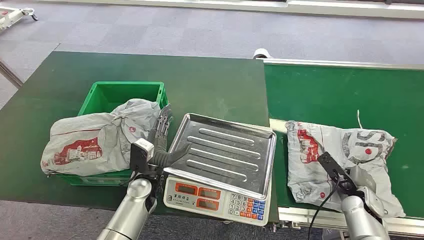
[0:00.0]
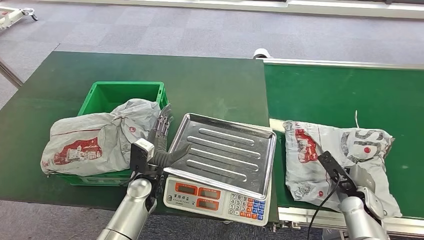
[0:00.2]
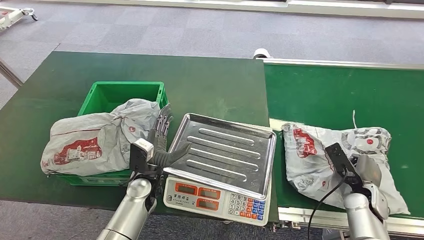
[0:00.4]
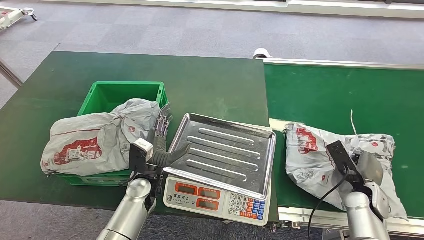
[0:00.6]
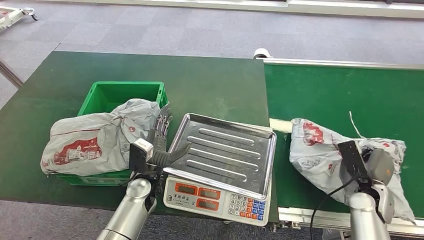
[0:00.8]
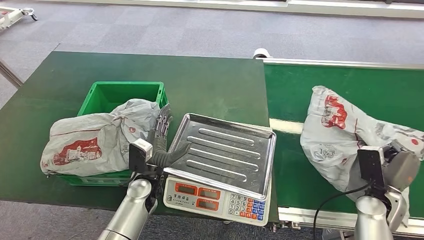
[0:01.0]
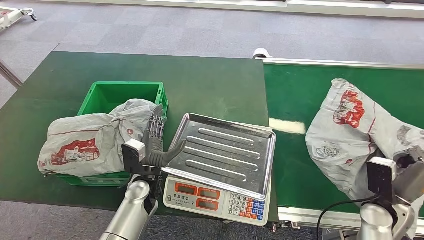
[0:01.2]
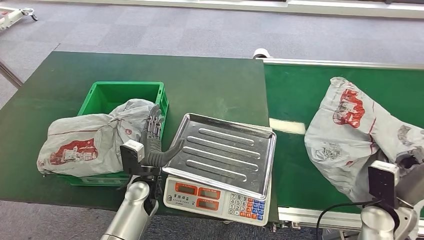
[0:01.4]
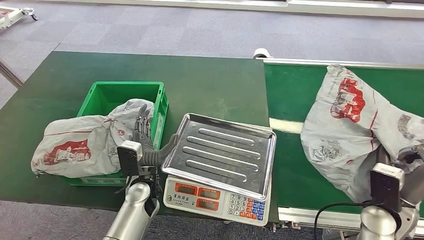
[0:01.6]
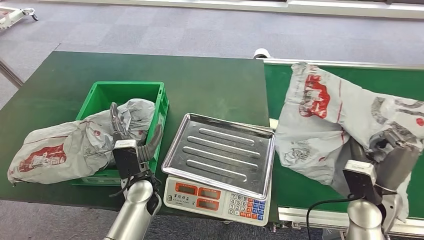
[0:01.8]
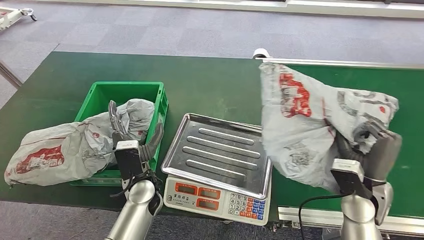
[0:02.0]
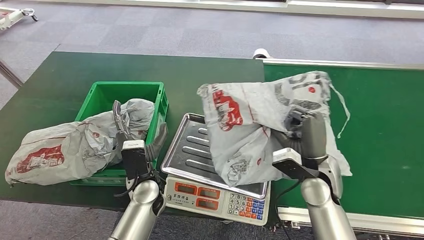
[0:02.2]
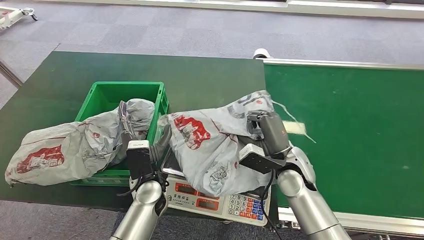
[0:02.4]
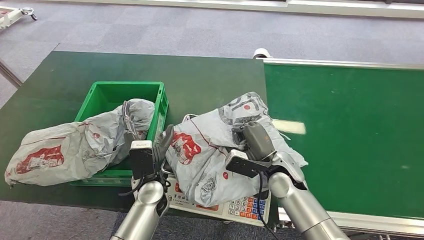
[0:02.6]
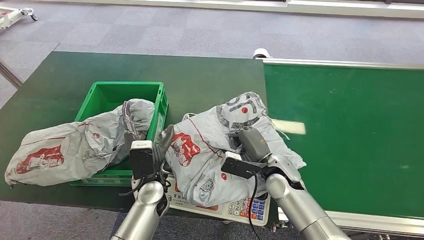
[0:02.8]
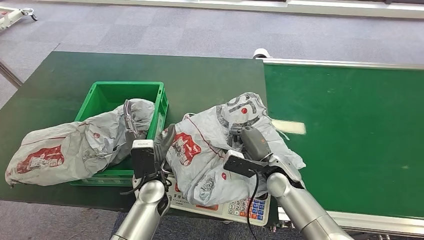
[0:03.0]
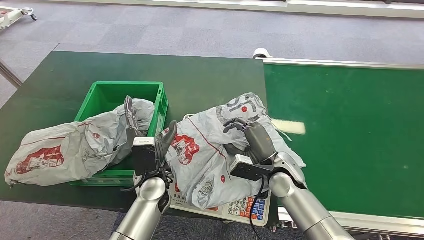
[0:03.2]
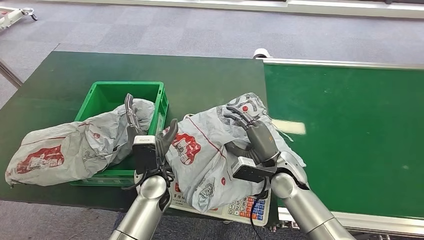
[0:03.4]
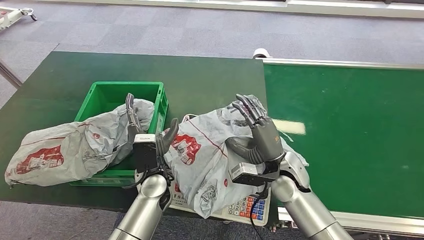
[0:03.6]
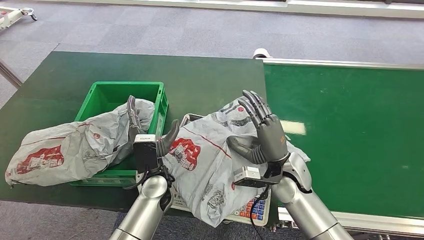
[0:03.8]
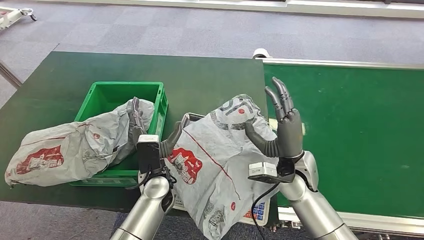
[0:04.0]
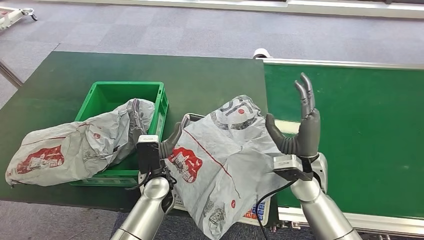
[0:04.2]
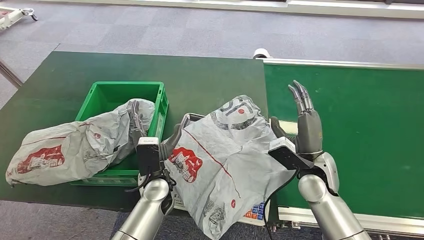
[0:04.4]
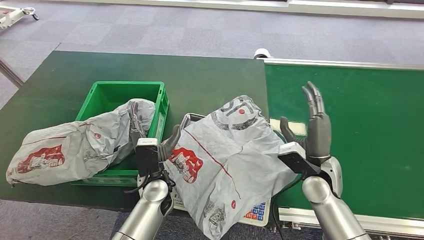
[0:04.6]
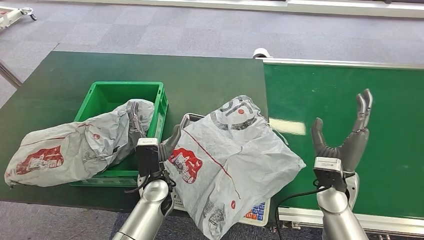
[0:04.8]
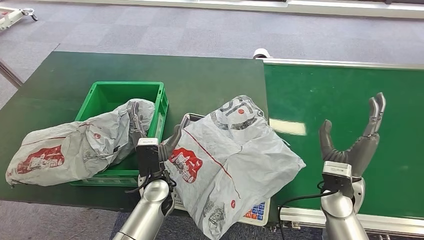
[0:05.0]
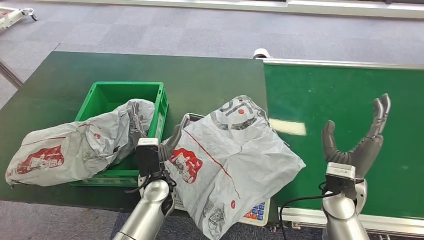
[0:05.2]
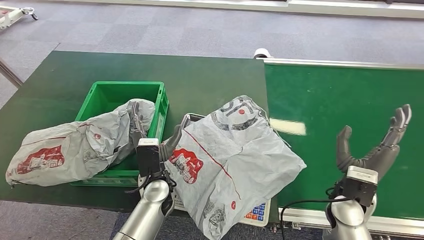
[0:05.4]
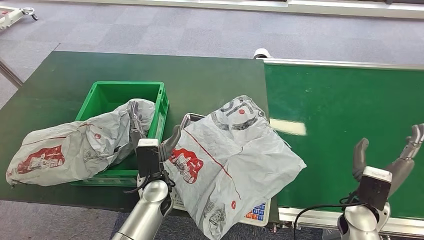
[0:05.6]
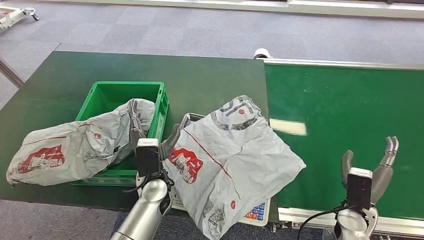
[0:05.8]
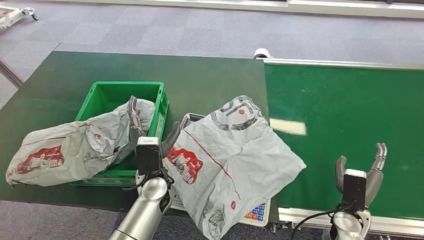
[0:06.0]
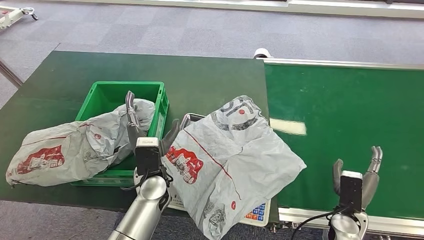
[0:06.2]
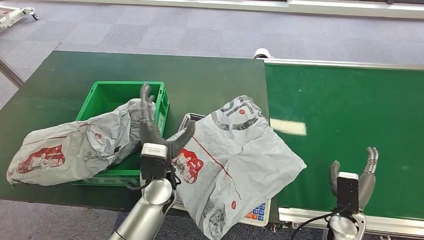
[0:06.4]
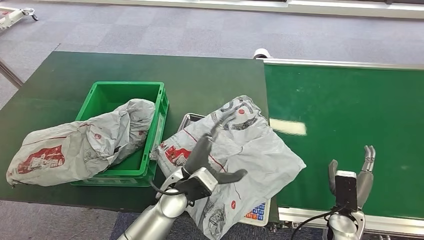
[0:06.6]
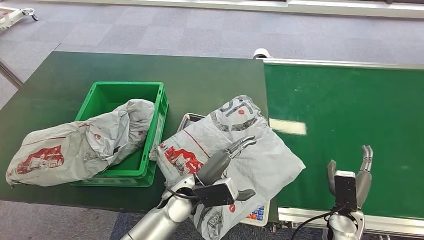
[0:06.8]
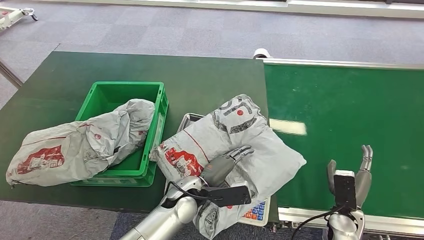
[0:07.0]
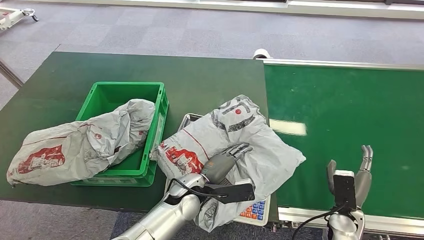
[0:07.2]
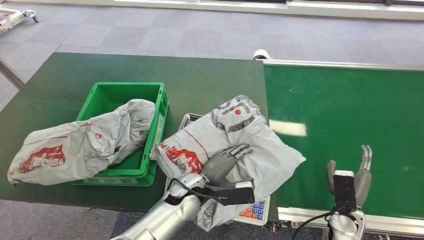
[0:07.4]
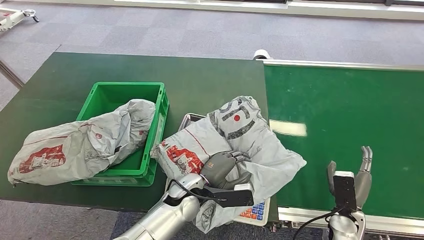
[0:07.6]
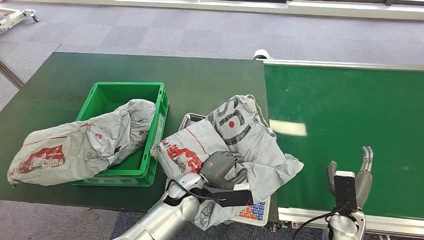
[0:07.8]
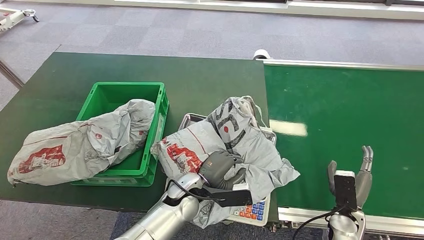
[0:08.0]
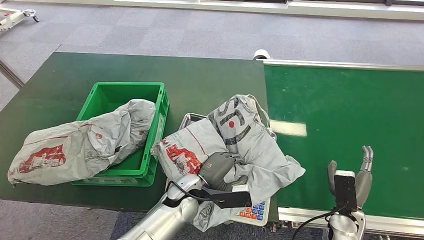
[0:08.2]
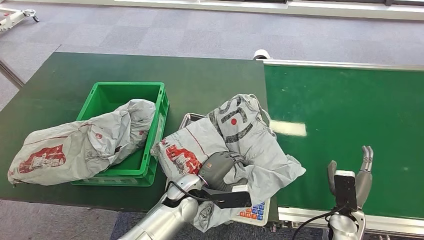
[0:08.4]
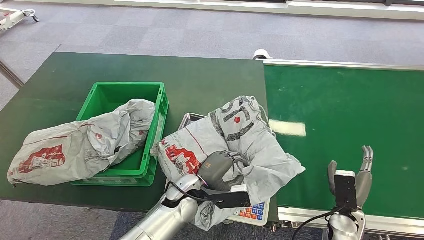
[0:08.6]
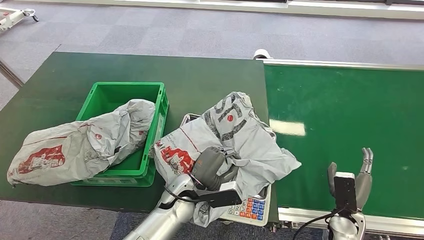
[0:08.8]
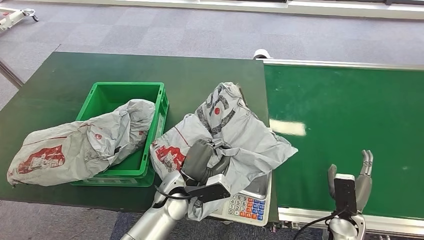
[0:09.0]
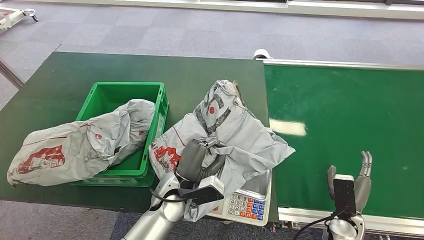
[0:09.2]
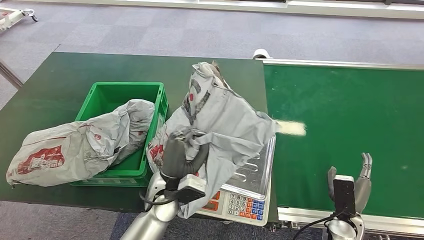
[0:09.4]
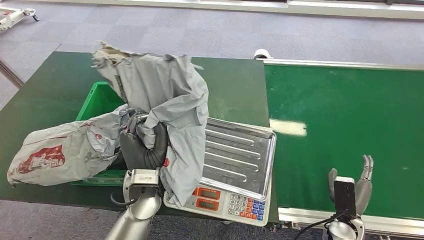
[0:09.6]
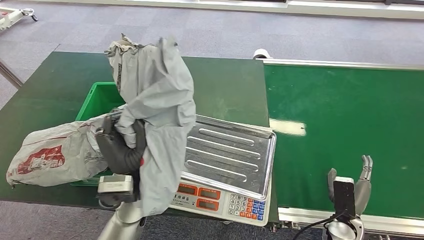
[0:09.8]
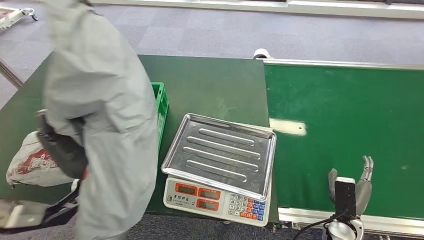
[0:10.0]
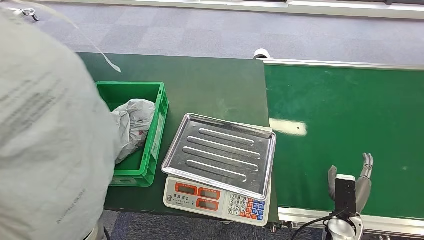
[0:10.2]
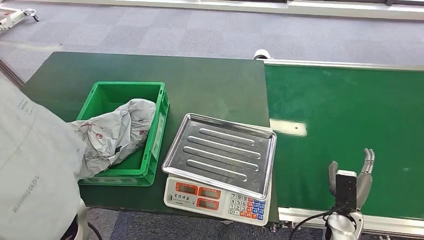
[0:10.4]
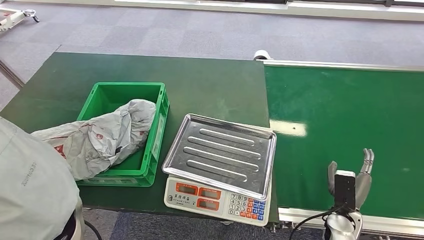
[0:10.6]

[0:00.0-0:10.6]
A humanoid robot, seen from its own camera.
Step, 0:00.0 to 0:01.4: Pick up the package from the conveyor belt.
Step, 0:02.4 to 0:04.0: Place the package onto the inbound machine.
Step, 0:06.8 to 0:09.4: Pick up the package from the inbound machine.
0:03.0 to 0:04.6: The right hand travels to the right by roughly 10 cm.
0:04.6 to 0:06.0: The right hand goes roughly 15 cm downward, to the right and backward.

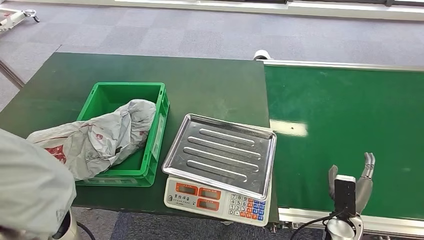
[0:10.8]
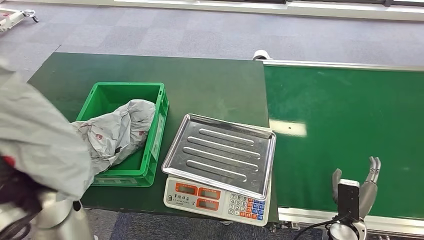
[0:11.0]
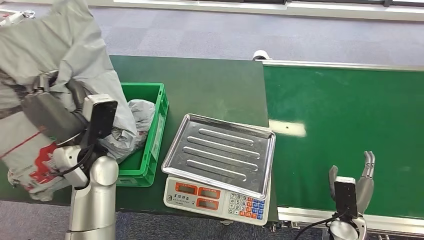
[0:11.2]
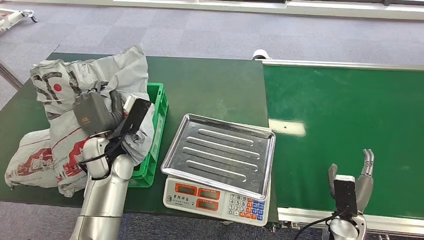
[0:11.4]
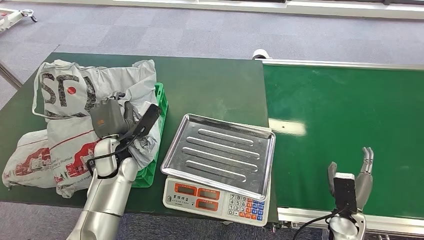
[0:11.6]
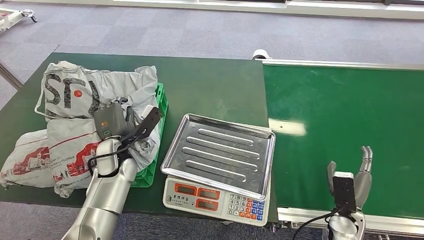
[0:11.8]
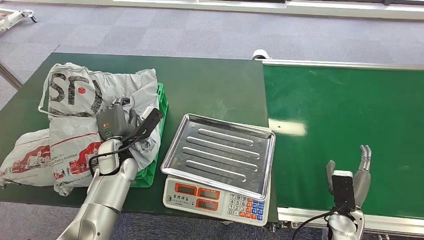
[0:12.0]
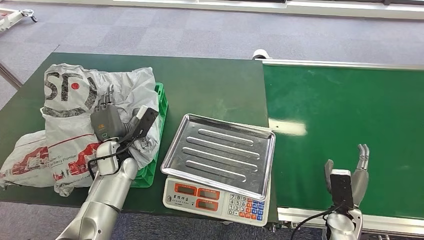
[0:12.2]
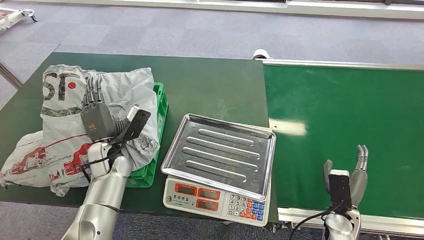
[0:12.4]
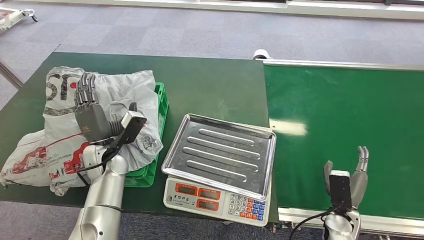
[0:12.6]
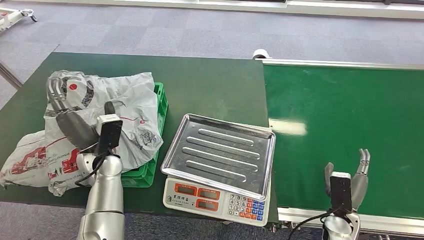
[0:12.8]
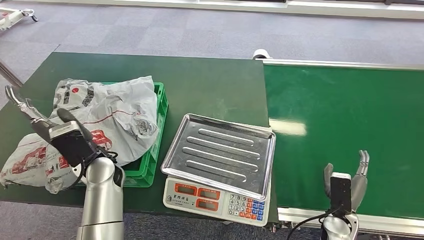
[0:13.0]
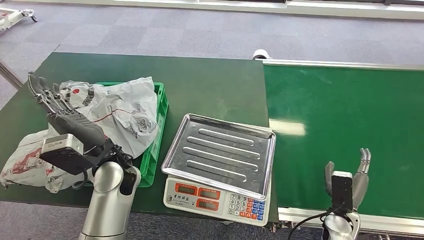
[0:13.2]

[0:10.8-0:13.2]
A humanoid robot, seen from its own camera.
Step, 0:10.8 to 0:13.2: Place the package into the parcel locker.
0:12.0 to 0:13.2: The left hand travels upward and to the right by roughly 10 cm.
